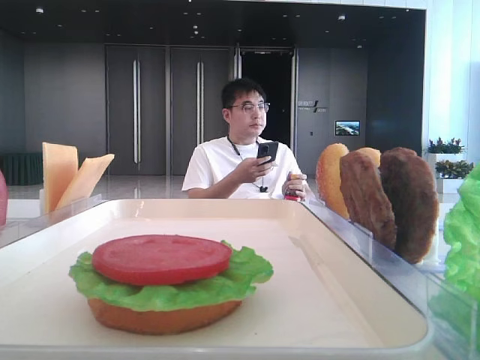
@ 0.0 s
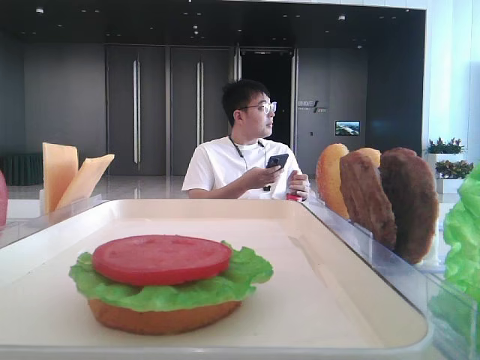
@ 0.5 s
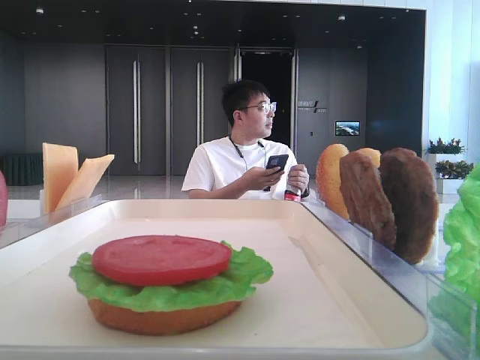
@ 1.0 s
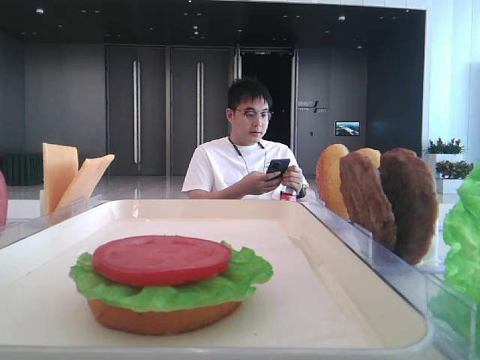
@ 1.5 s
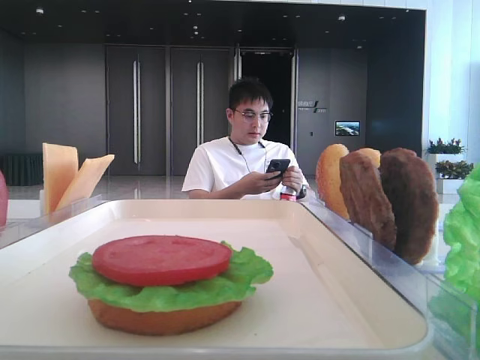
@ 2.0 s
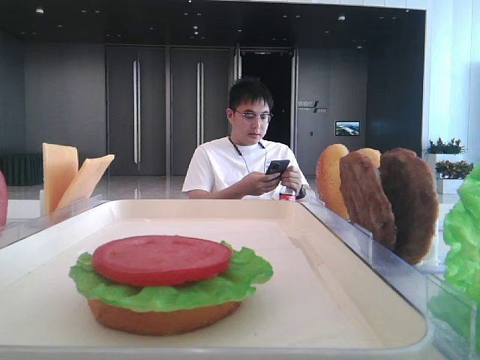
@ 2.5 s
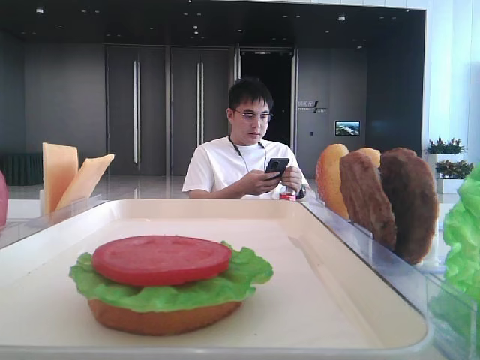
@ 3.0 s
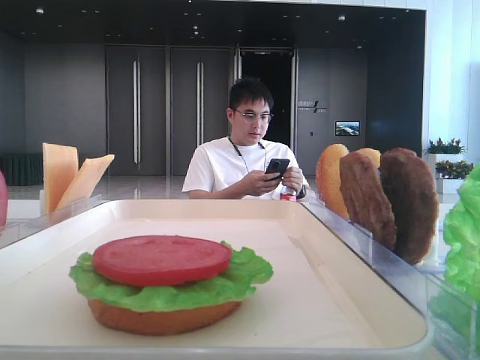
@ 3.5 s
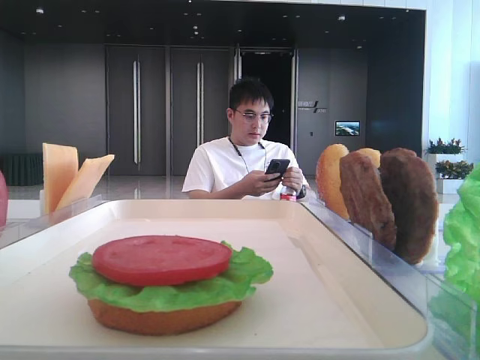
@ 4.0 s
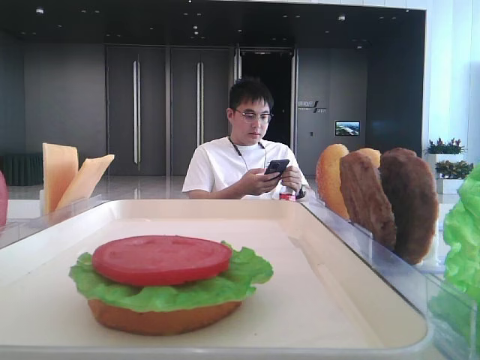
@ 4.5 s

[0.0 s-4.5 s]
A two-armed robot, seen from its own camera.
0.0 to 2.0 s: The left gripper travels backward by about 25 cm.

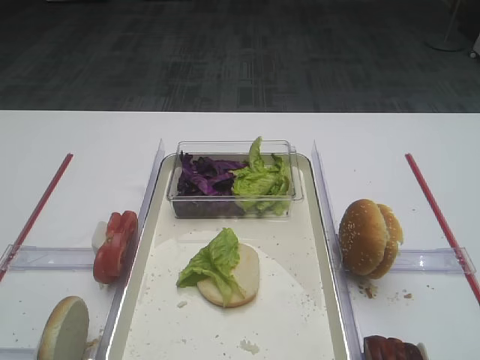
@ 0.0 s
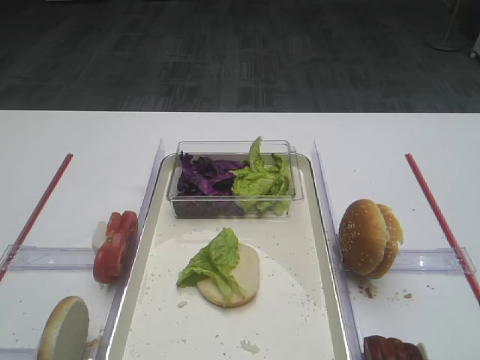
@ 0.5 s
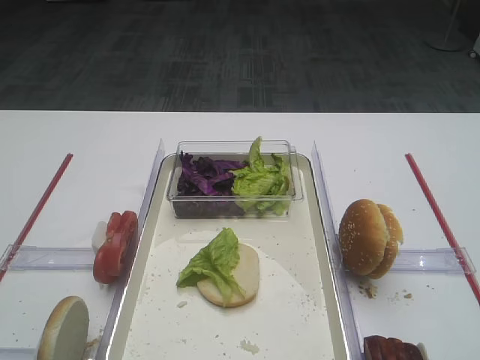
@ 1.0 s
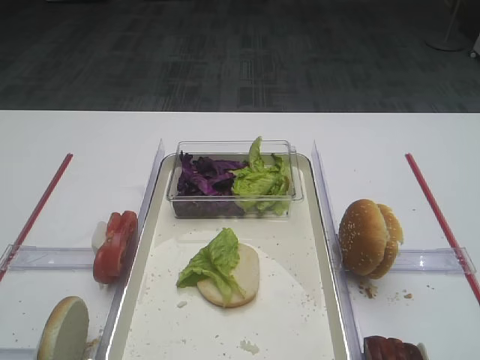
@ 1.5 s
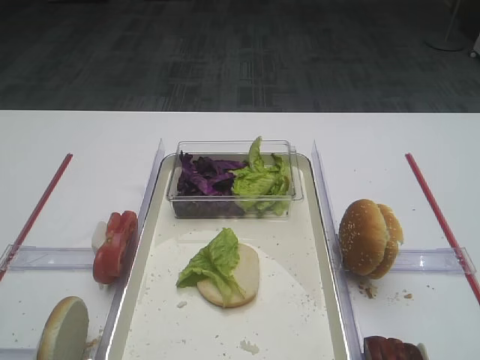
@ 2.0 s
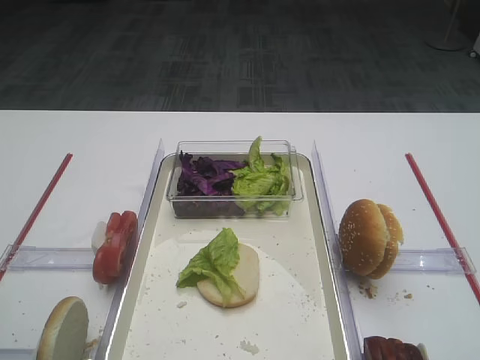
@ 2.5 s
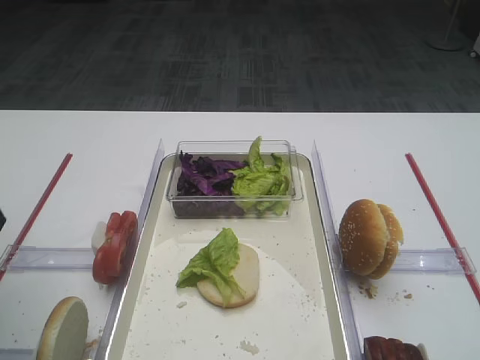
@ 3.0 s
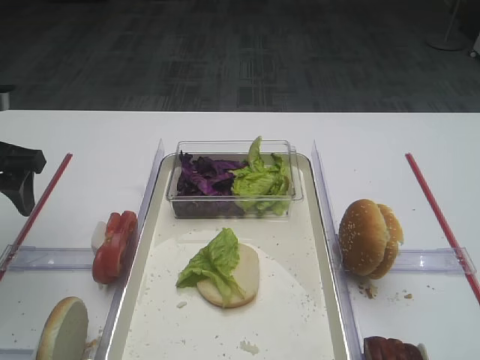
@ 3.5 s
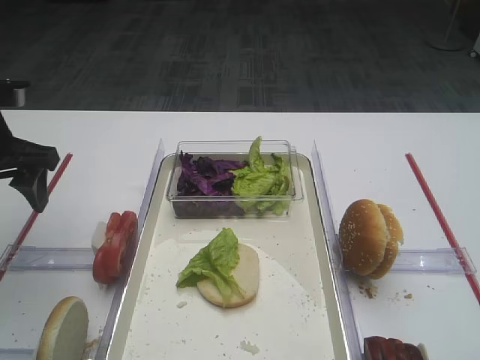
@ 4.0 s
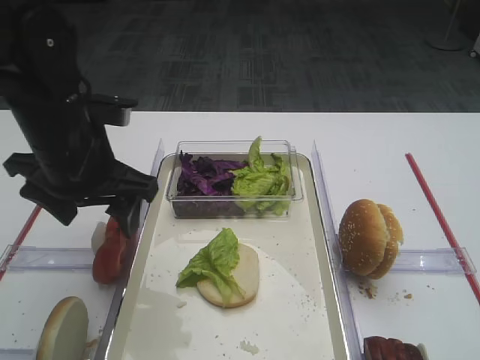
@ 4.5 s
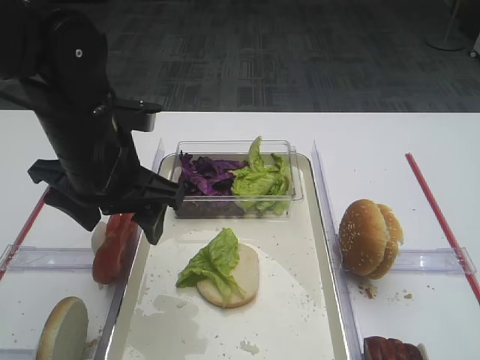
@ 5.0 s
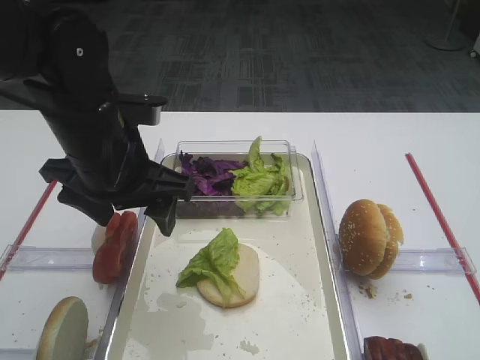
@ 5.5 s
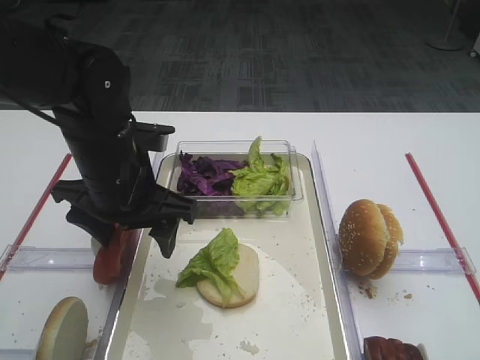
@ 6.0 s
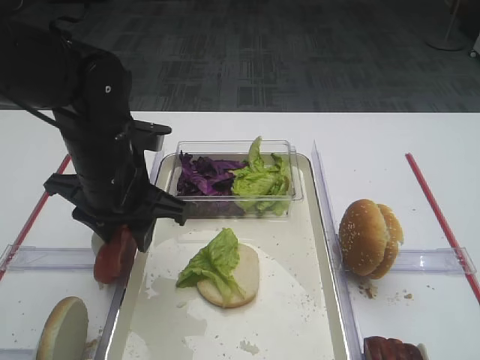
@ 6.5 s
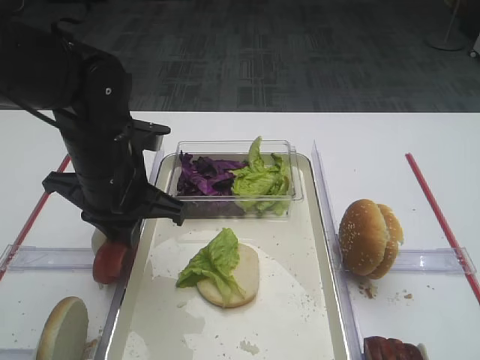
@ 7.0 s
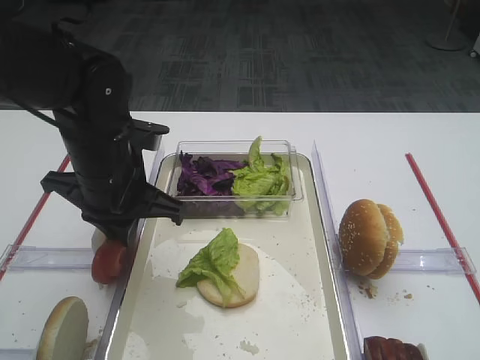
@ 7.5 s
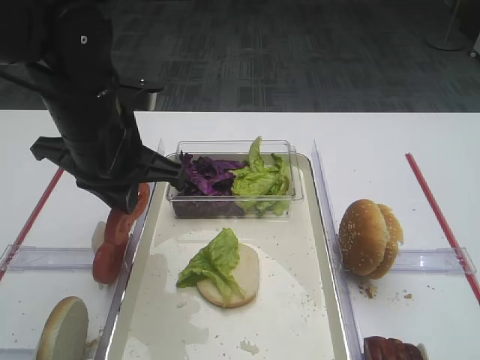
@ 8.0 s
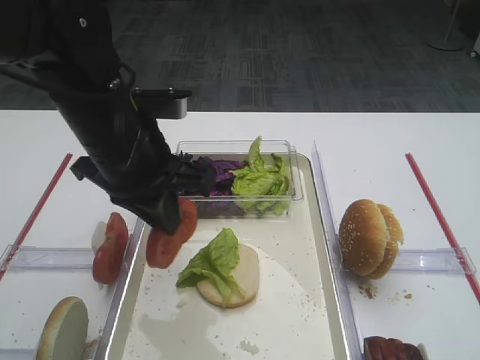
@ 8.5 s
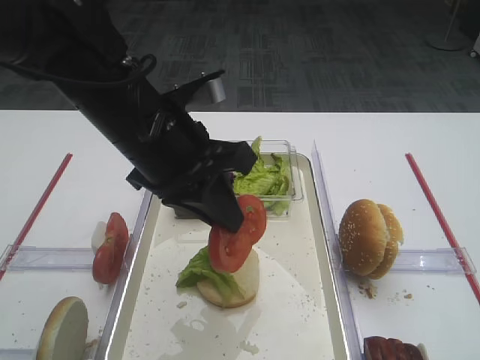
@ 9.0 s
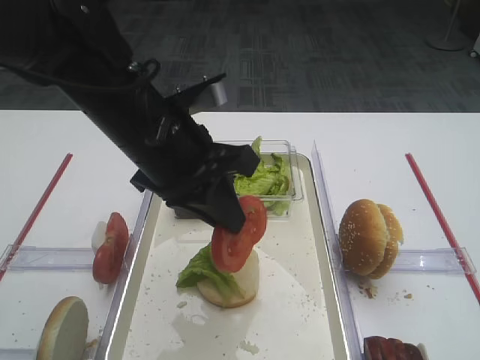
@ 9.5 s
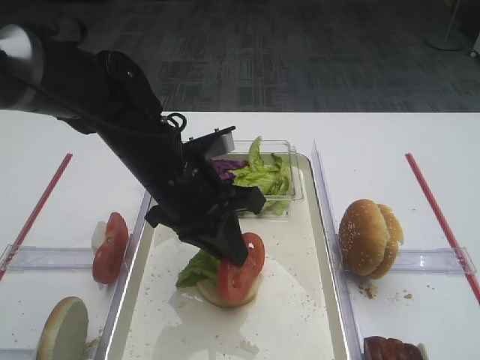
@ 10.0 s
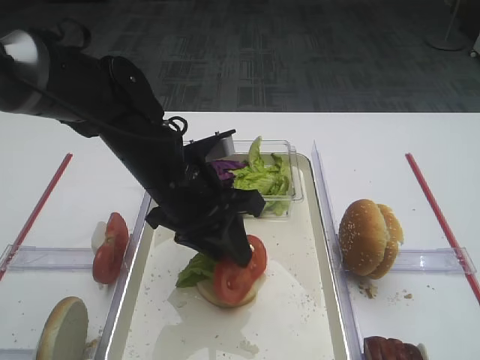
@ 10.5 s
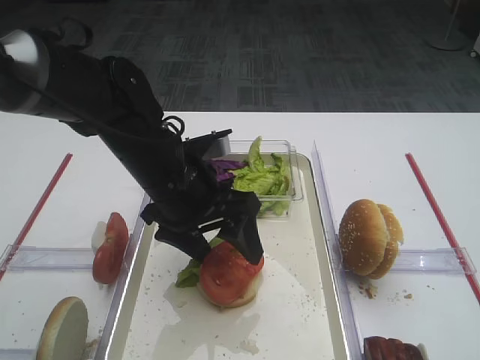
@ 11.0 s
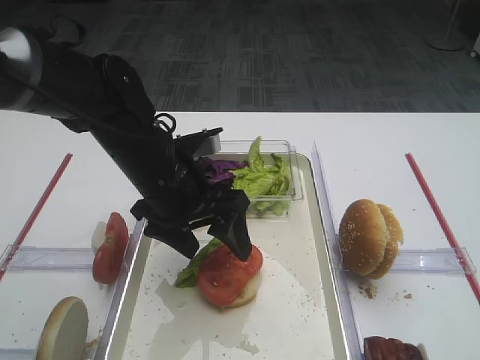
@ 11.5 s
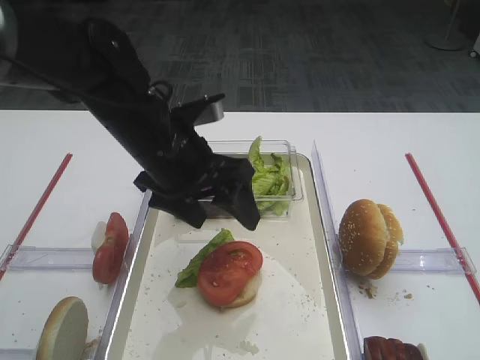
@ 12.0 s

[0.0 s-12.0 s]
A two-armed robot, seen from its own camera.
Step, 0.0 to 7.5 s: Pick up the tomato slice with the left gripper.
Step, 8.0 to 11.5 s: Place the tomato slice on the lettuce leaf with the left gripper.
2.0 to 4.0 s: The left gripper heads forward, covering some 20 cm.
4.0 to 6.0 s: The left gripper goes some 15 cm to the right.
6.0 to 8.0 s: The left gripper closes up.
8.0 to 10.0 s: The left gripper travels to the right and downward by roughly 10 cm.
10.0 to 12.0 s: The left gripper opens its fingers.

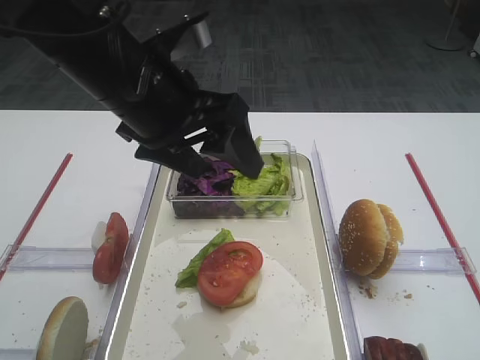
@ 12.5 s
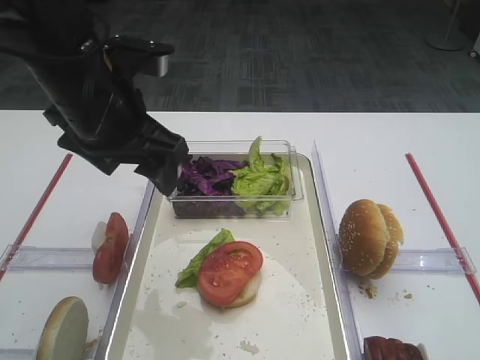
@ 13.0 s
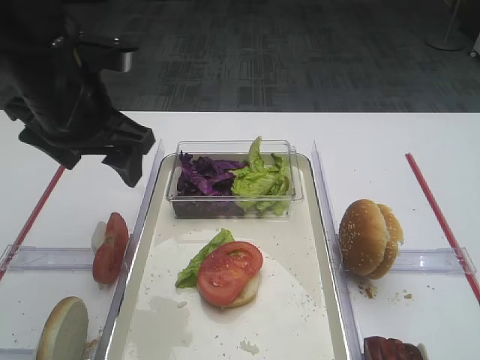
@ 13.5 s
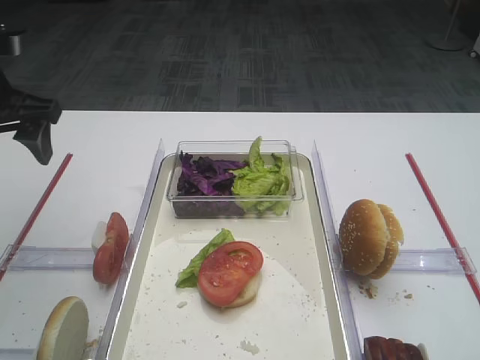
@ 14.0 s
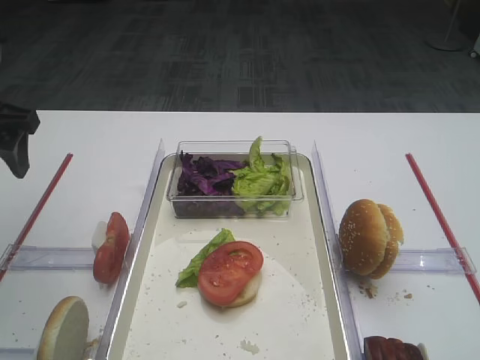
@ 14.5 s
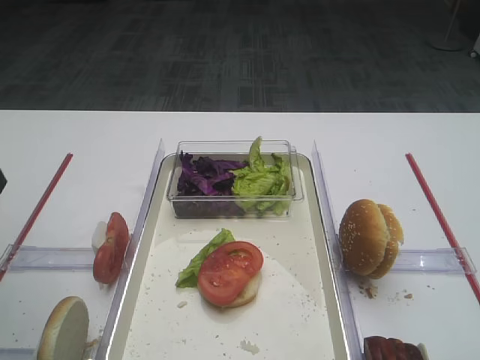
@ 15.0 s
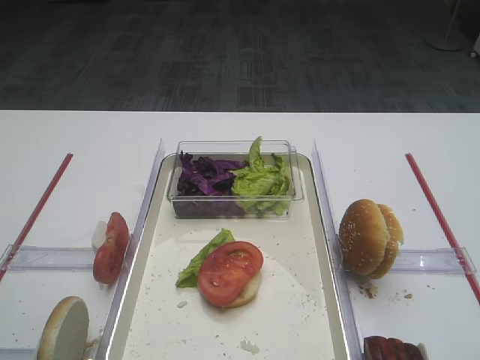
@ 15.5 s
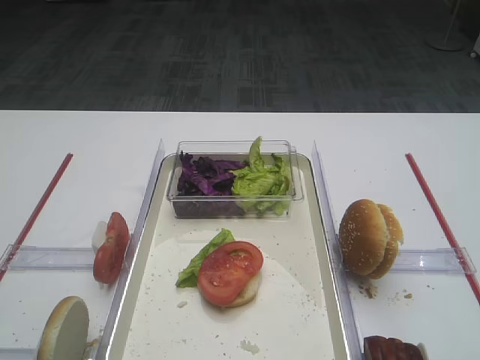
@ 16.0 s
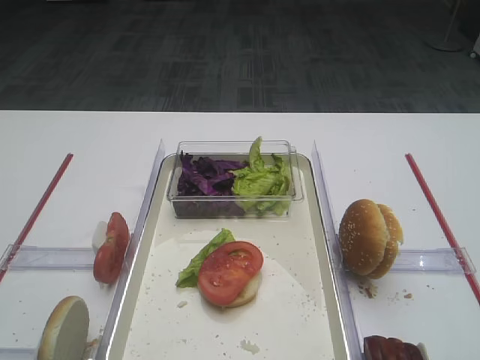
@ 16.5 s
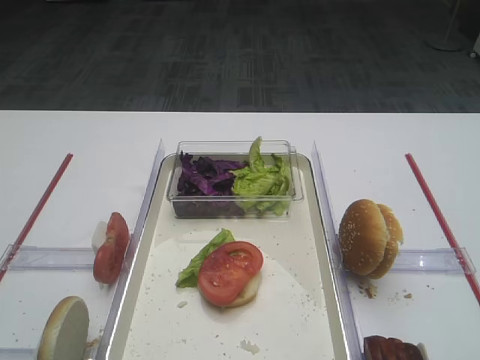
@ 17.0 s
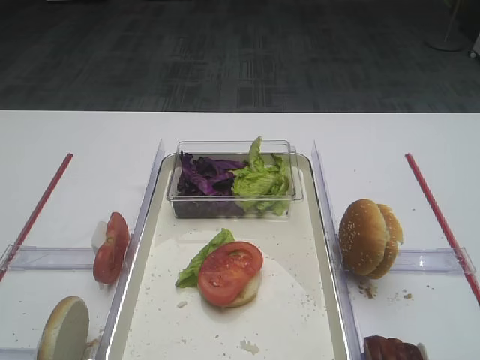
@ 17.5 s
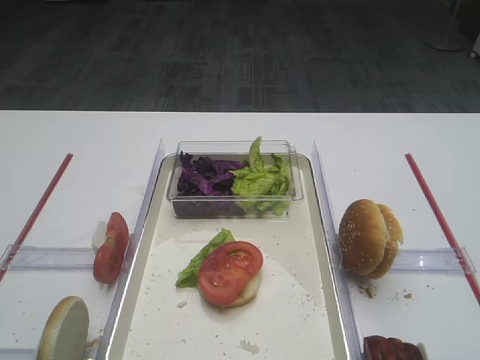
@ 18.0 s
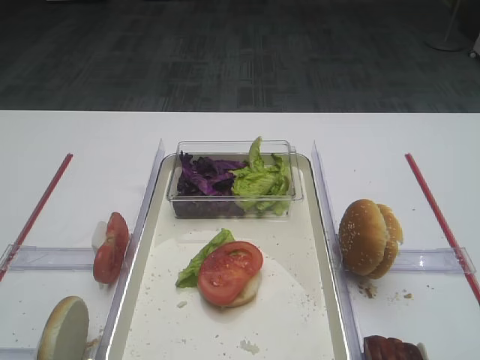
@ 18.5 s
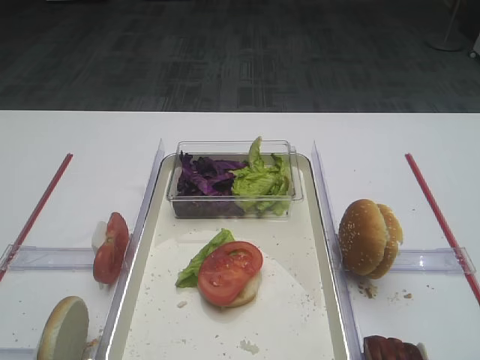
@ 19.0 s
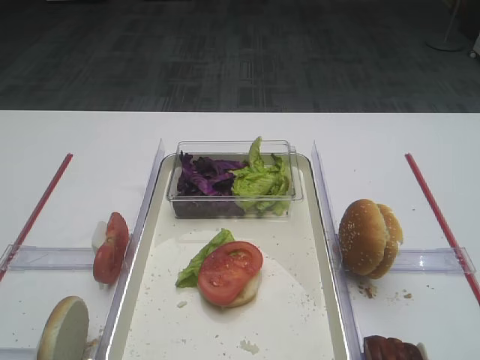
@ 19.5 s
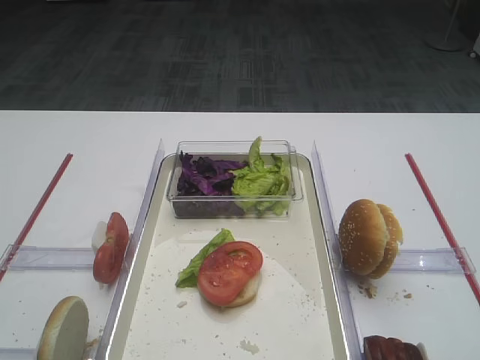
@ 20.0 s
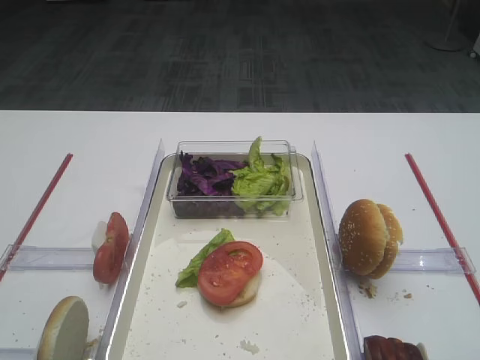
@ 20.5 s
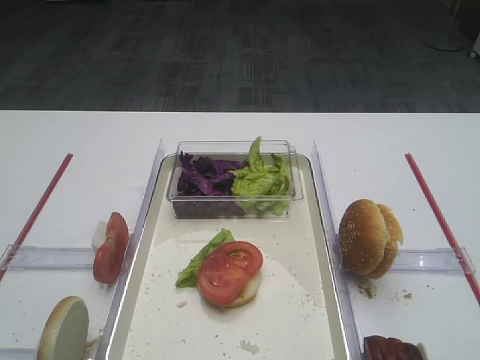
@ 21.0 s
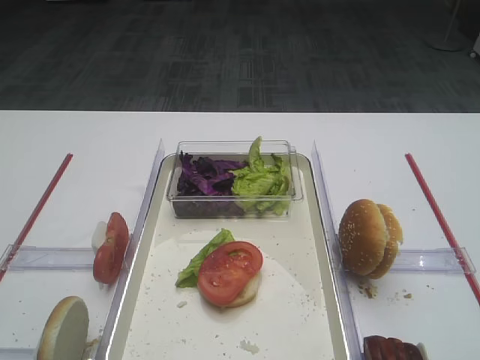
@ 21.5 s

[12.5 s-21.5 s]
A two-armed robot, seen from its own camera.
12.5 to 14.5 s: The left gripper moves to the left, approximately 20 cm.
14.5 to 17.0 s: The left gripper goes some 35 cm backward.
17.0 to 21.5 s: Neither gripper changes place.
